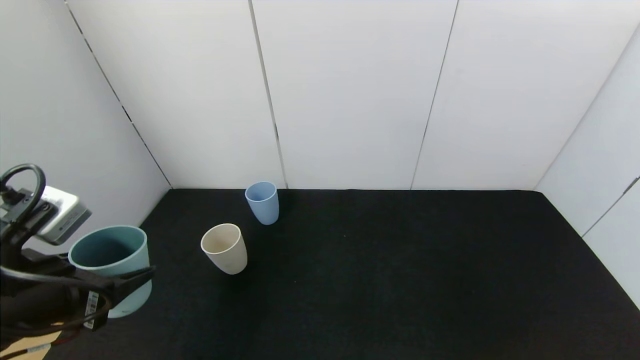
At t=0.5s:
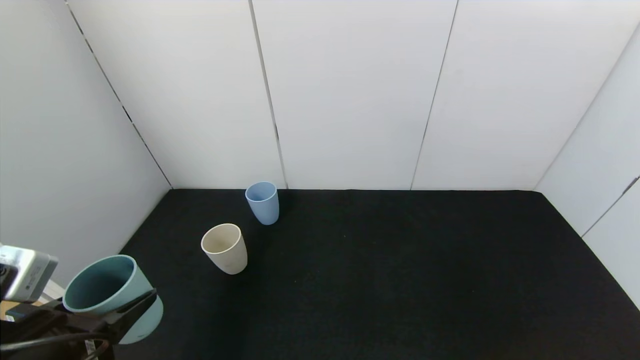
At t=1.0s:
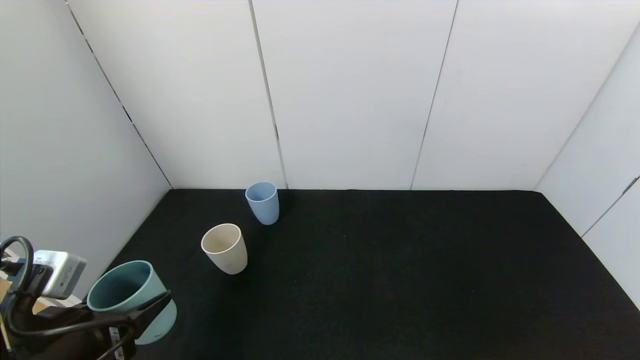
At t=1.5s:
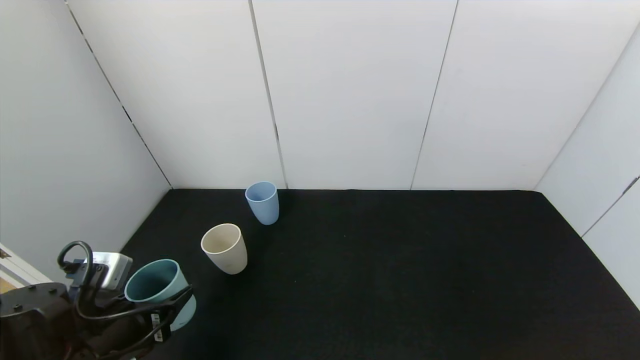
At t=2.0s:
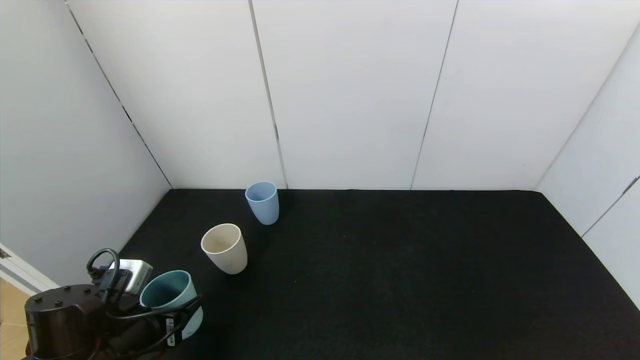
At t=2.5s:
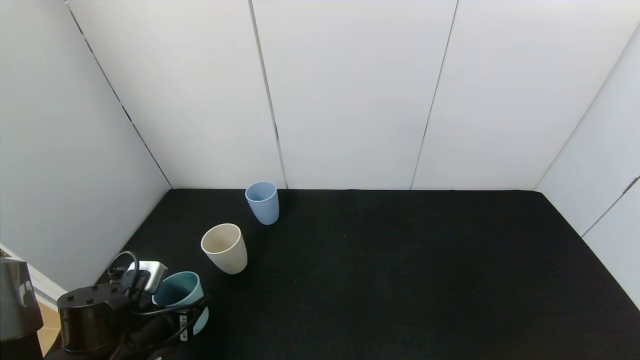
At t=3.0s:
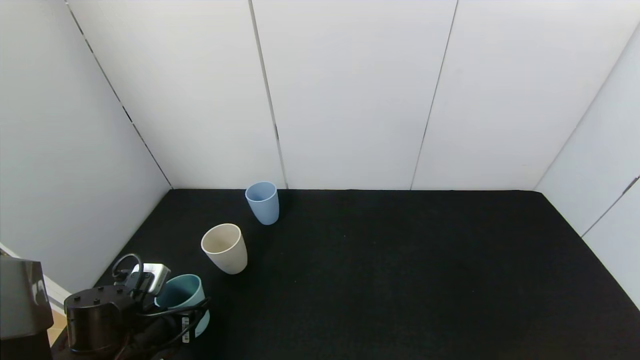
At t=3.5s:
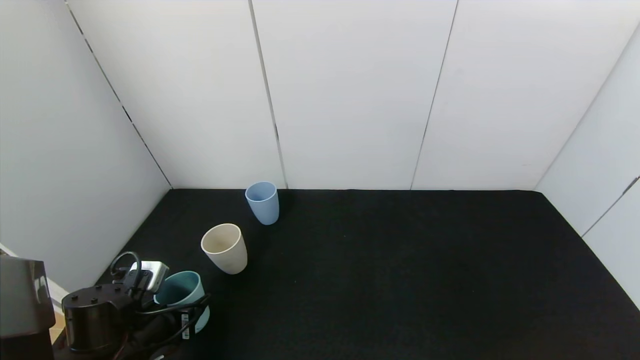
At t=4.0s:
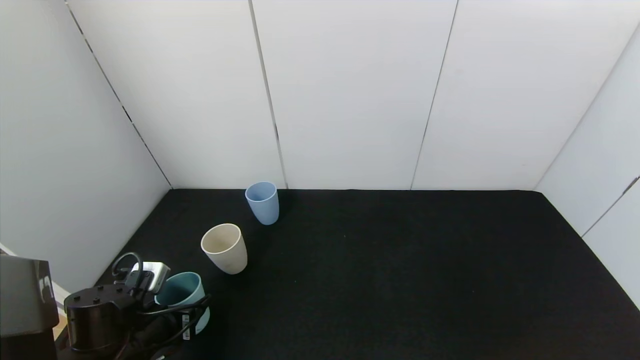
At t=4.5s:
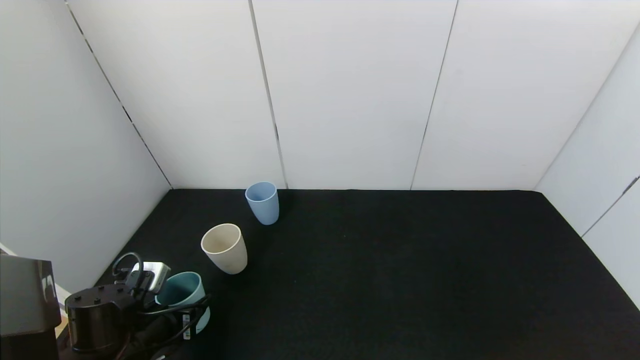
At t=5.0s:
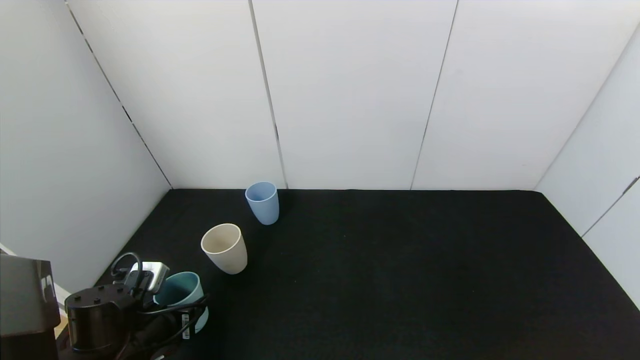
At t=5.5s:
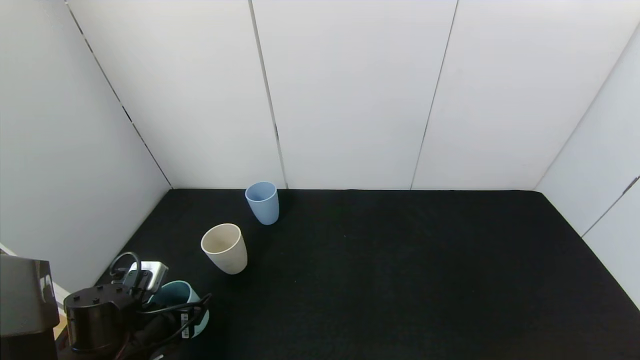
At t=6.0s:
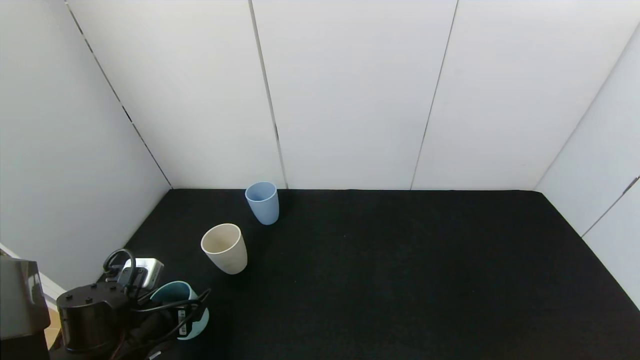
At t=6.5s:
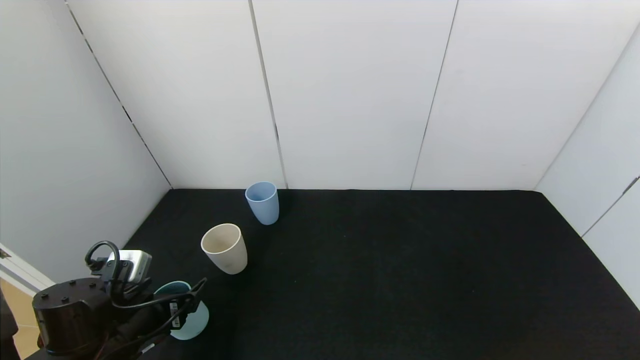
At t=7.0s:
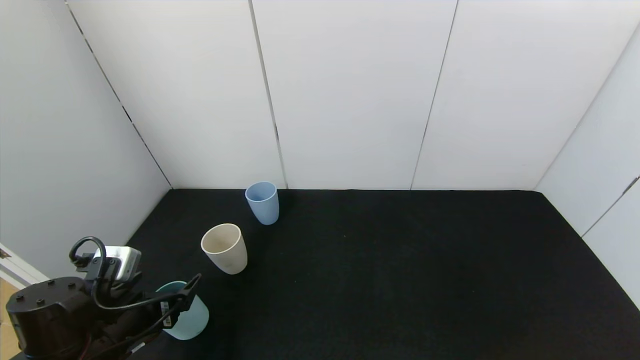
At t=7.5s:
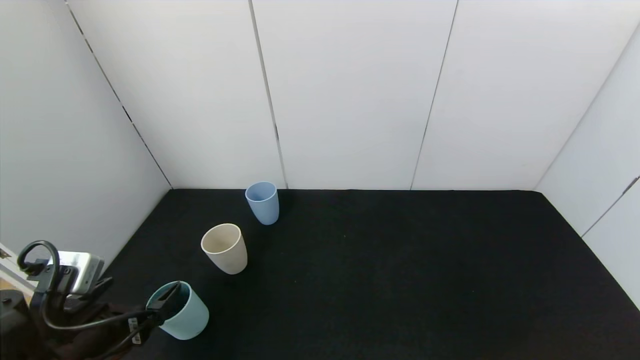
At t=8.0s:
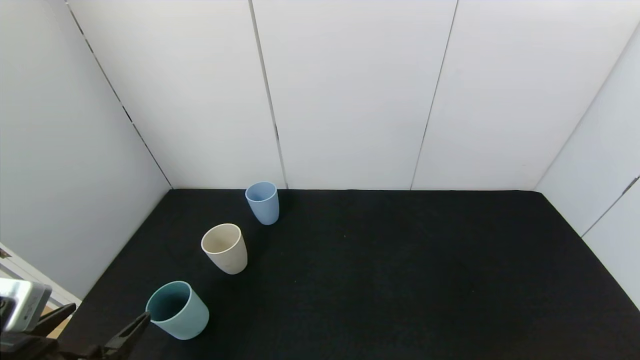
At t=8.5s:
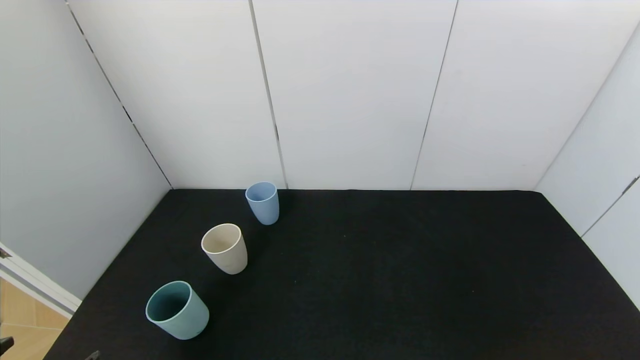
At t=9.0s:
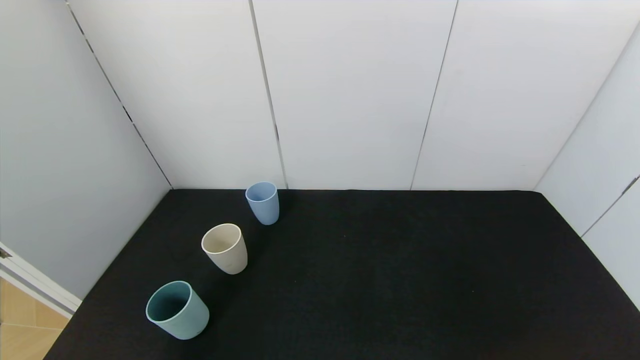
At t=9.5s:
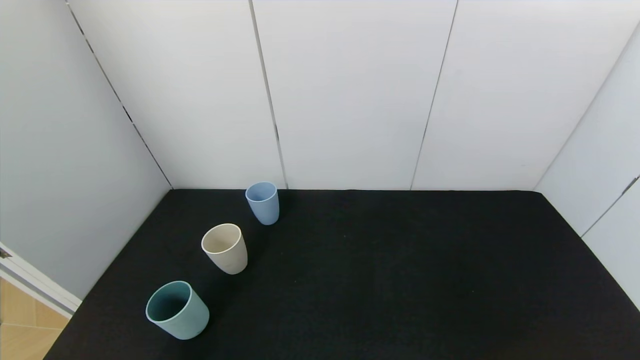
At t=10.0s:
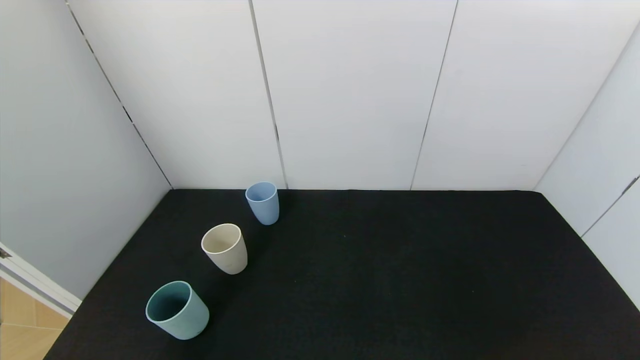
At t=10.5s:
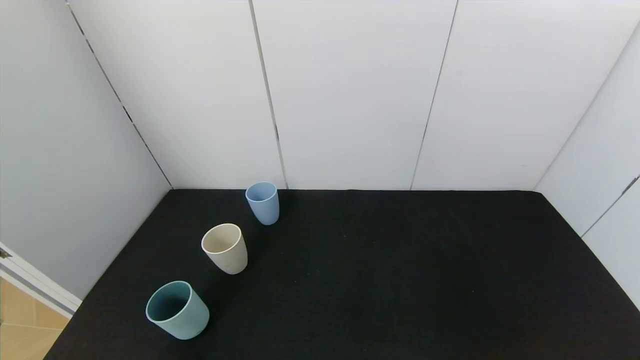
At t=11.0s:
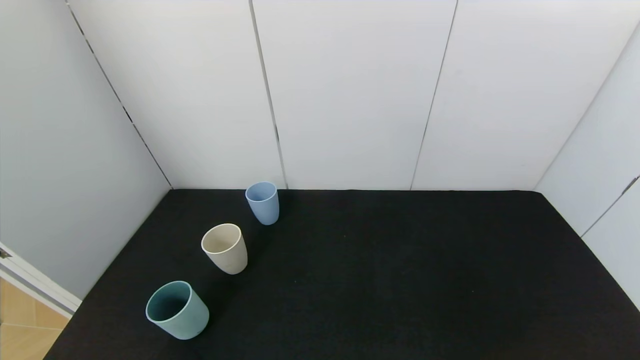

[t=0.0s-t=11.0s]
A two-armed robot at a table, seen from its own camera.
Task of the whole recording: use the gripper to pour the water into the other two cups on black table.
Step, t=0.0s to t=6.0s: Place the green cup with the left gripper.
t=0.0s to t=2.0s: The left gripper travels downward by about 15 cm.
t=2.0s to t=3.5s: There are only small adjustments of the grippers.
t=3.5s to t=5.5s: The left gripper opens its fingers.
t=5.5s to t=7.5s: The left gripper shifts about 10 cm upward and backward, and opens up.
t=7.5s to t=9.0s: The left gripper is displaced backward by about 15 cm.
